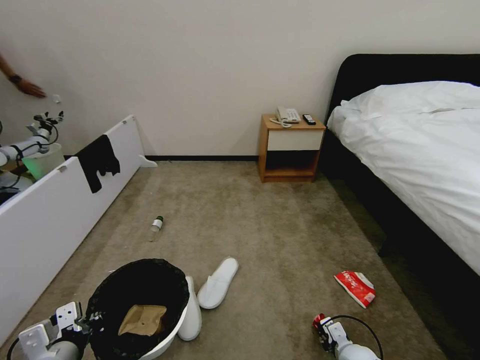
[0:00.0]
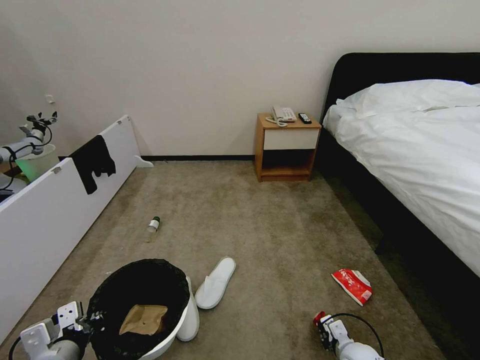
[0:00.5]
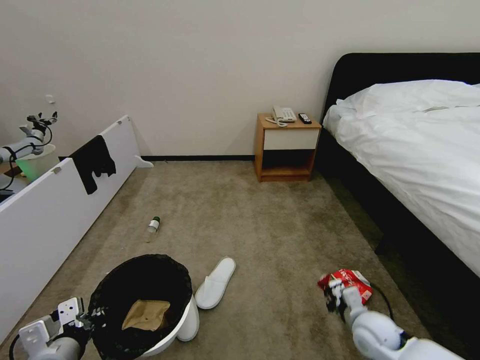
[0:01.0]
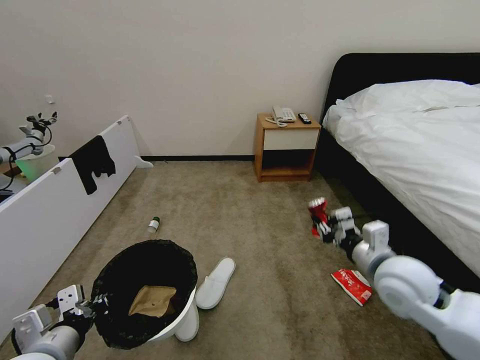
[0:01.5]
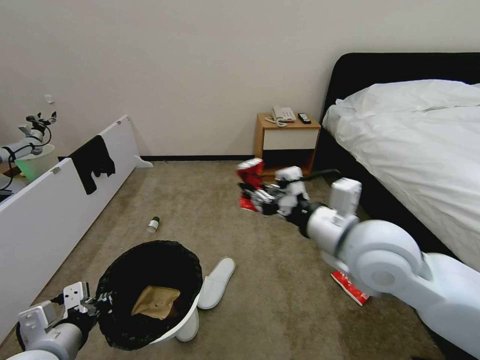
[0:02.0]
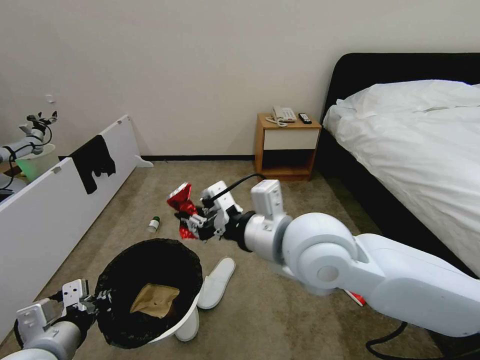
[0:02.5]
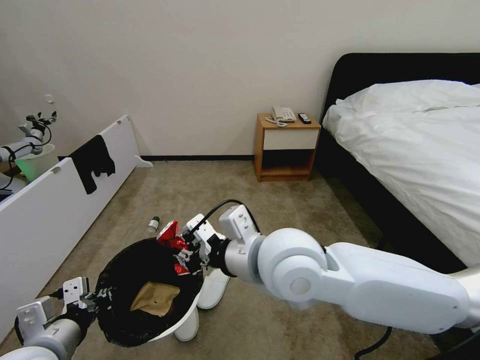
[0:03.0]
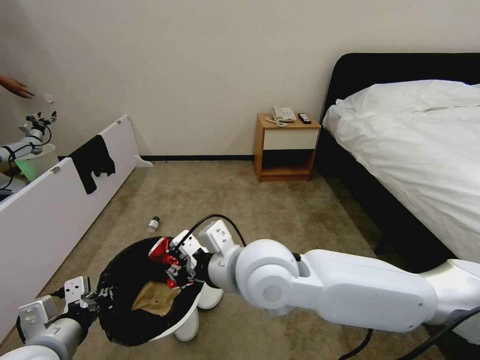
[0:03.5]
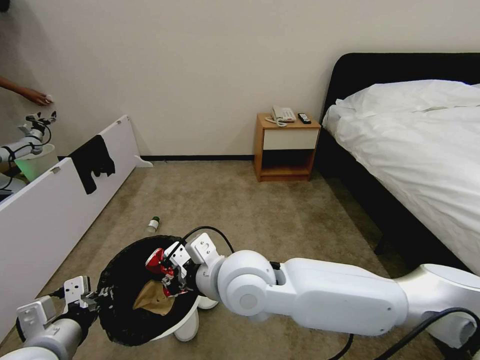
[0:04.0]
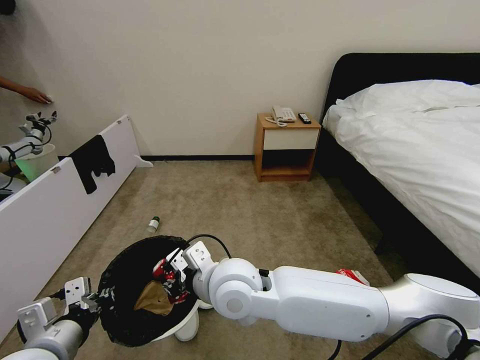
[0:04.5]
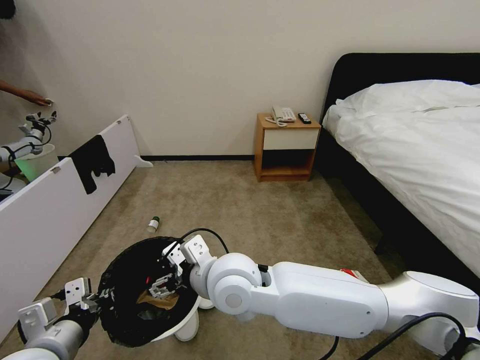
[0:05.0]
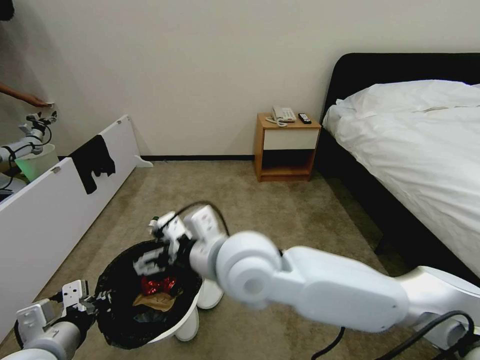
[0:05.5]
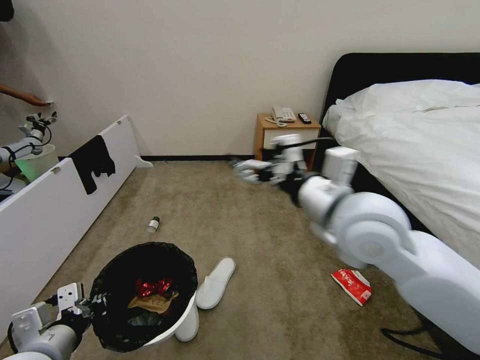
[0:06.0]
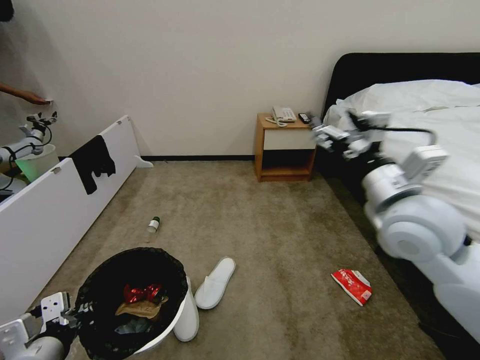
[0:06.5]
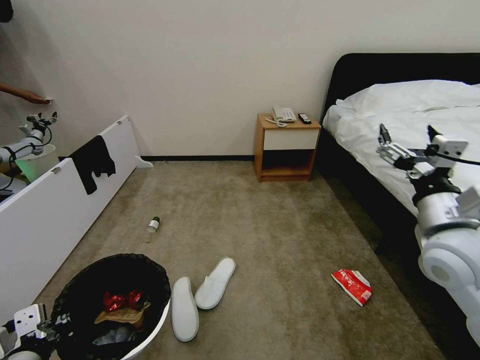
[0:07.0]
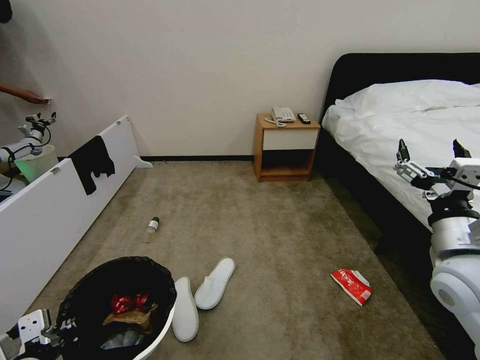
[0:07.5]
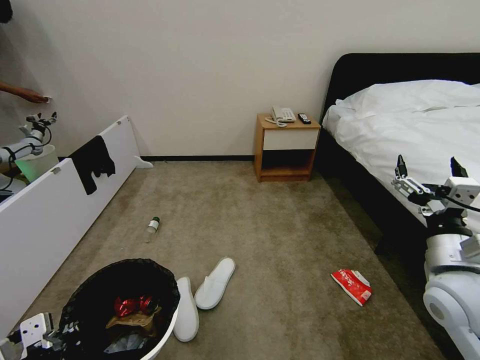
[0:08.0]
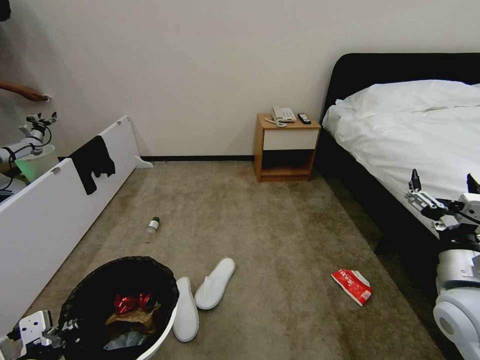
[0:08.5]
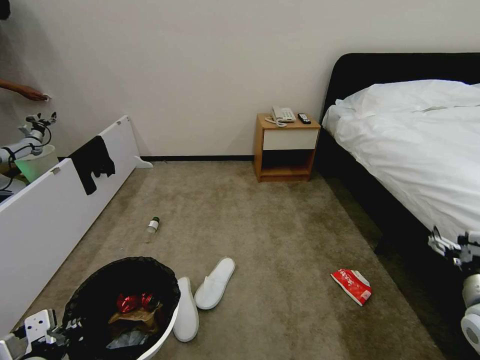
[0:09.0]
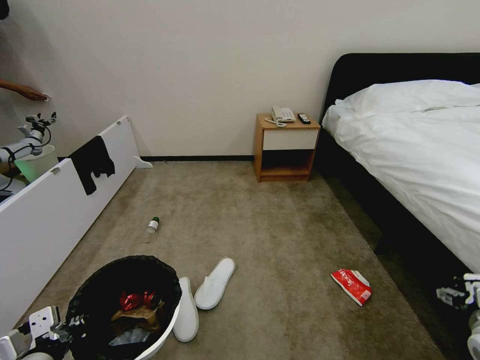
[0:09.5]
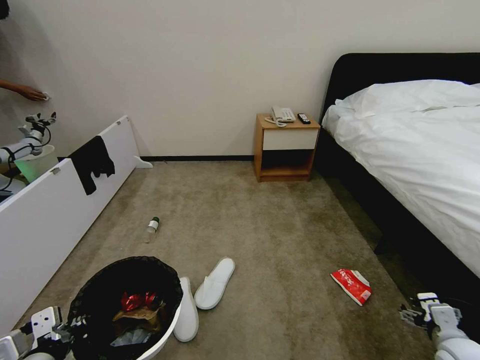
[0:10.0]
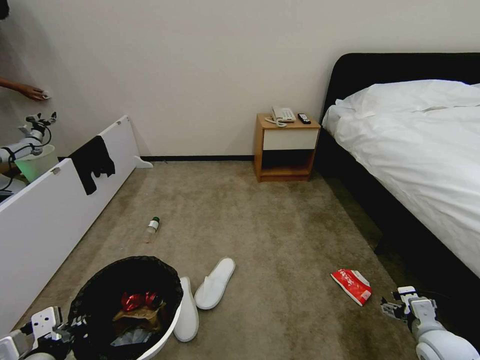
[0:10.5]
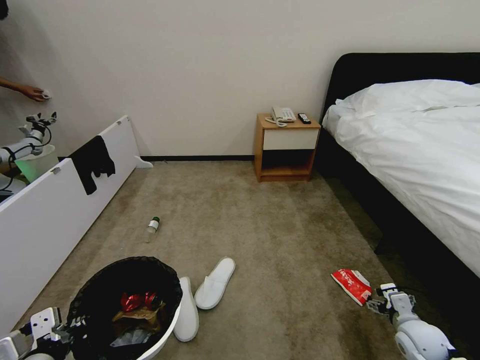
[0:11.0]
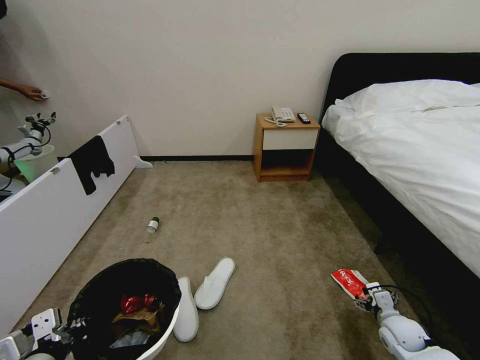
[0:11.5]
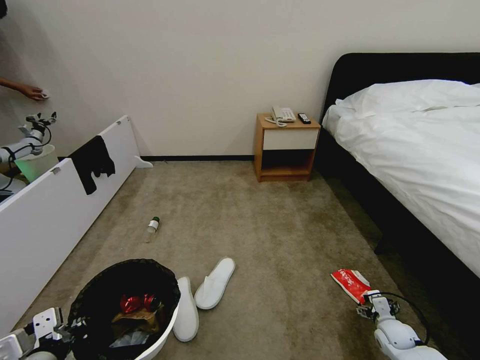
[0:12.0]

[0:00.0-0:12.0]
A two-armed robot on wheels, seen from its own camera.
Task of the whole recording: Pick up the trash bin, then pick up the garbage from the floor and place it into the trash bin.
0:00.0 to 0:02.0: The left gripper moves roughly 5 cm, while the right gripper moves upward, approximately 50 cm.
0:02.0 to 0:04.0: The right gripper heads to the left and downward, covering roughly 20 cm.
0:04.0 to 0:06.0: The right gripper travels to the right and upward by approximately 20 cm, and opens.
0:06.0 to 0:08.0: The left gripper is displaced backward by roughly 5 cm. The right gripper moves to the right and downward, some 20 cm.
0:08.0 to 0:10.0: The right gripper shifts approximately 20 cm downward and to the right.
0:10.0 to 0:12.0: The right gripper heads downward and forward, covering about 15 cm.

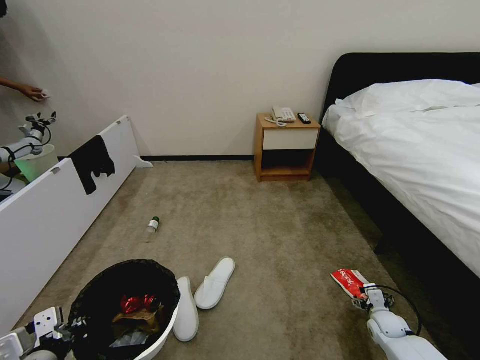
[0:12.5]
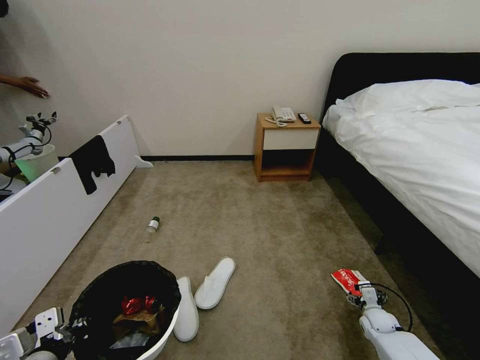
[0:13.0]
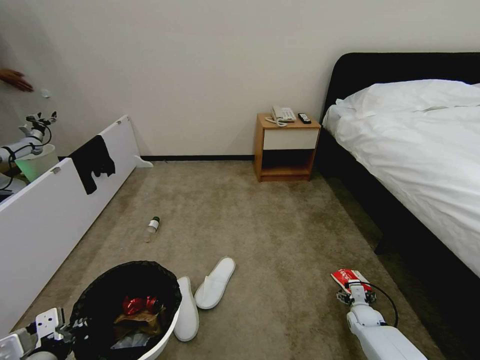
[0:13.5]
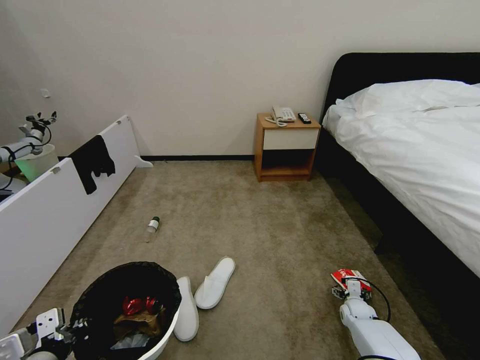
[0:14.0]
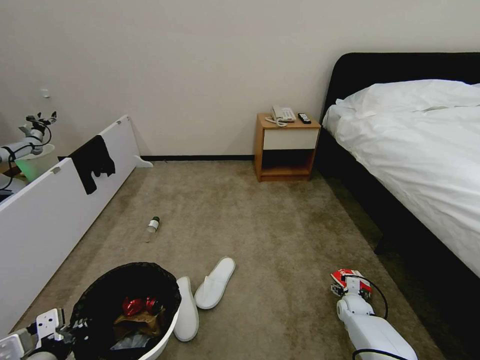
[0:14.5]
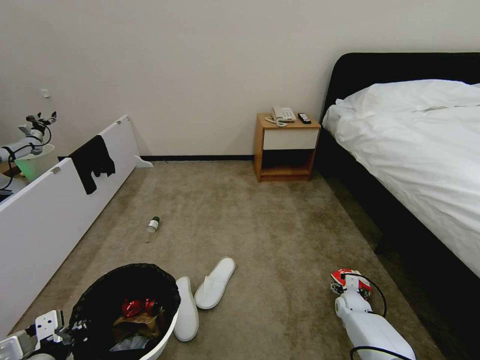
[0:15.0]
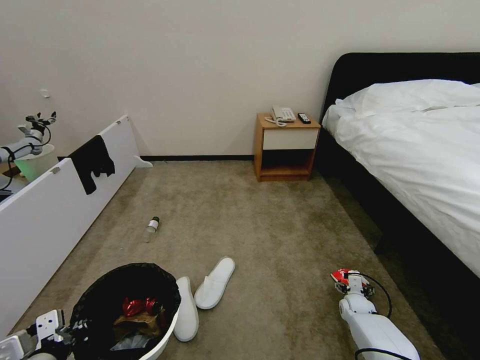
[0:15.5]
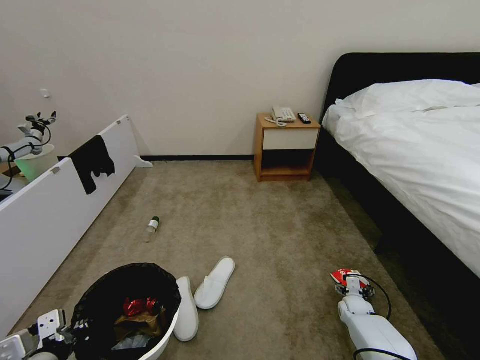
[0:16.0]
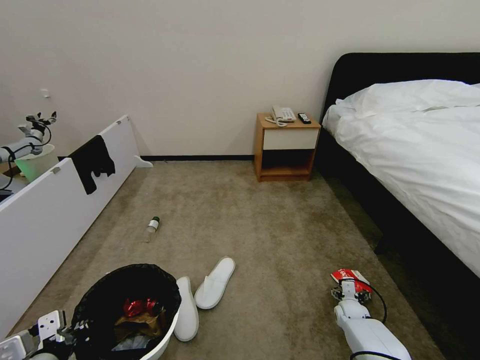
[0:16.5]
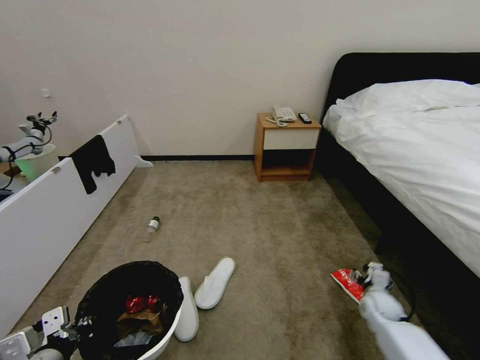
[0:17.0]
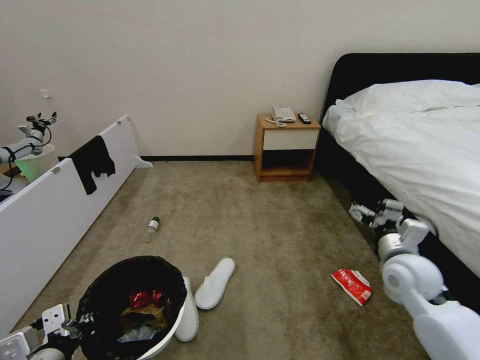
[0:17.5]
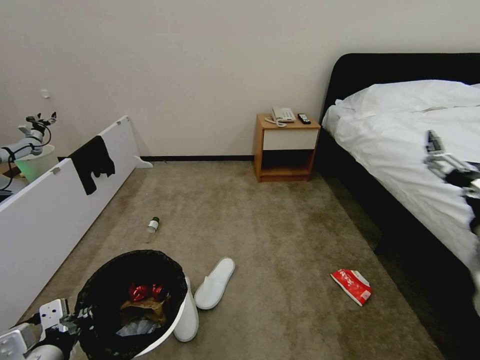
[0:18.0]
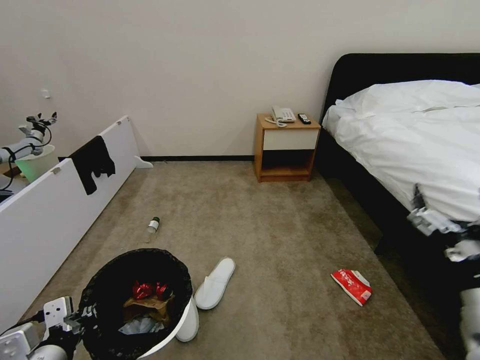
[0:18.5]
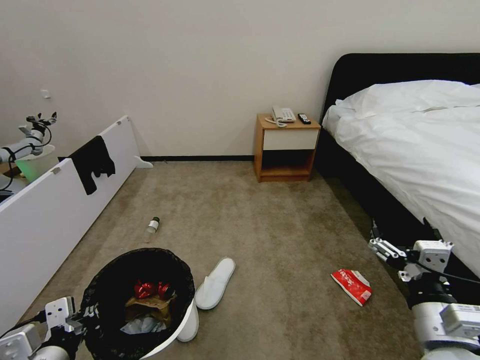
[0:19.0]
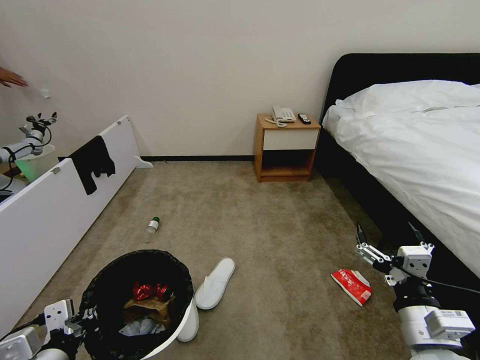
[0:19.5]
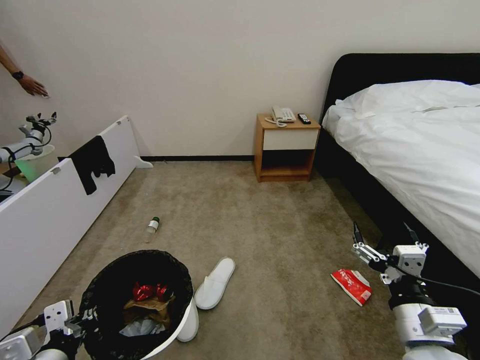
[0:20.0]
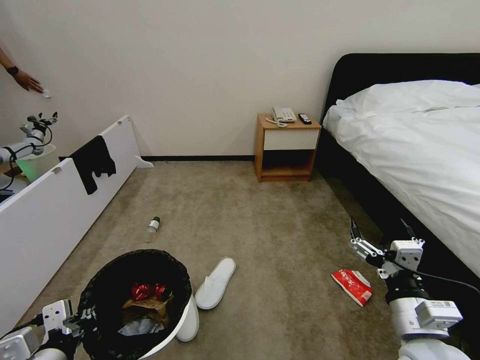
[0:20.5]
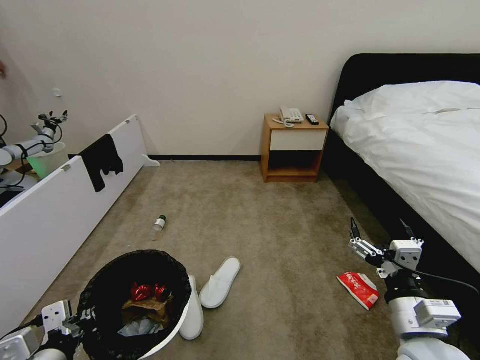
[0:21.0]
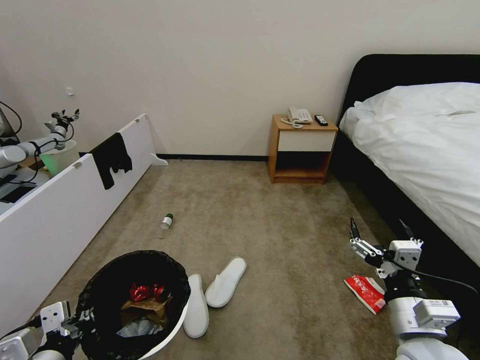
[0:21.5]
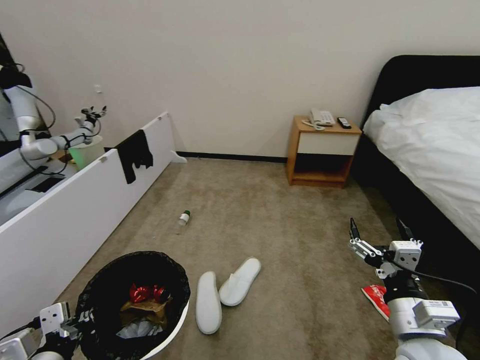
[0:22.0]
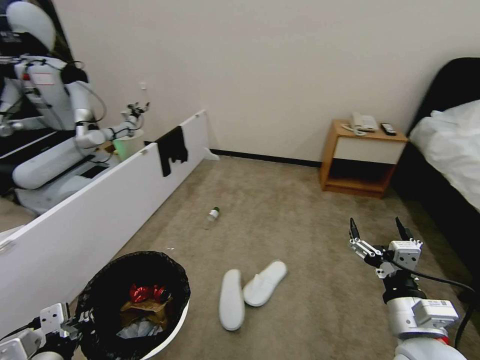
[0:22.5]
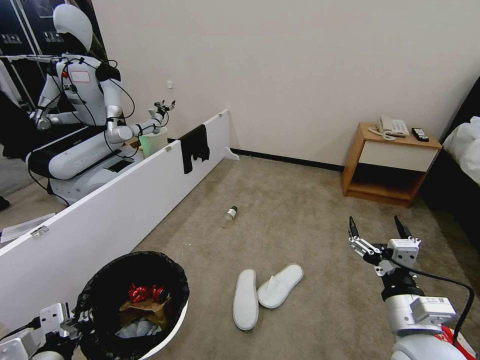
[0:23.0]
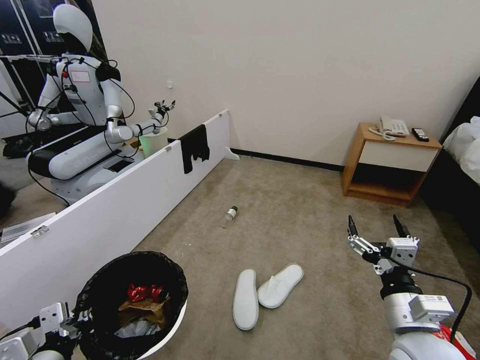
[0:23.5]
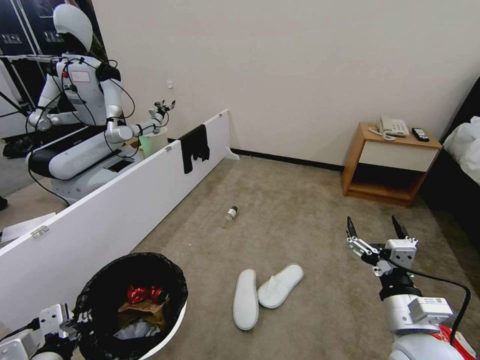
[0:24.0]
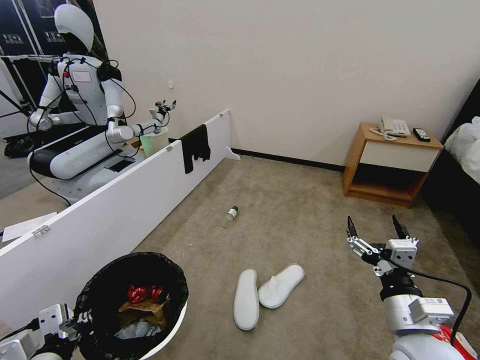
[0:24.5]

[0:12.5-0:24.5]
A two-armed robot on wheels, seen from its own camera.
Task of the whole recording: Pick up the trash bin, then pick up the garbage from the floor and place it into the trash bin.
0:12.5 to 0:14.5: The right gripper goes some 10 cm forward and to the left.
0:14.5 to 0:16.5: The grippers stay close to where they were, moving slightly.
0:16.5 to 0:18.5: The right gripper shifts about 50 cm upward and backward.
0:18.5 to 0:20.5: The right gripper moves downward, roughly 10 cm.

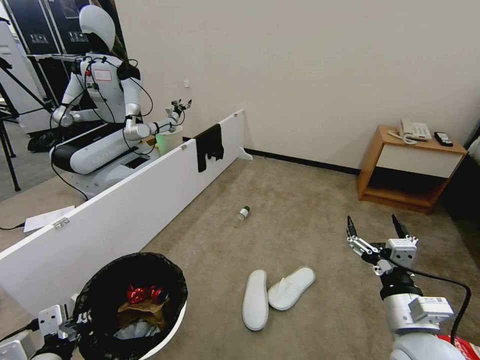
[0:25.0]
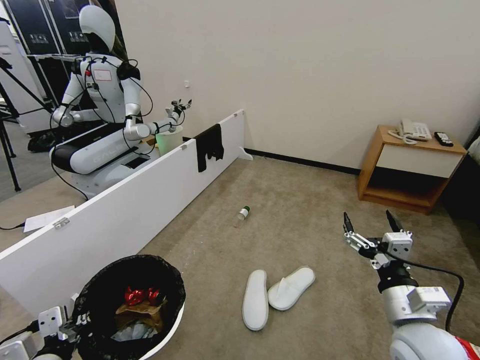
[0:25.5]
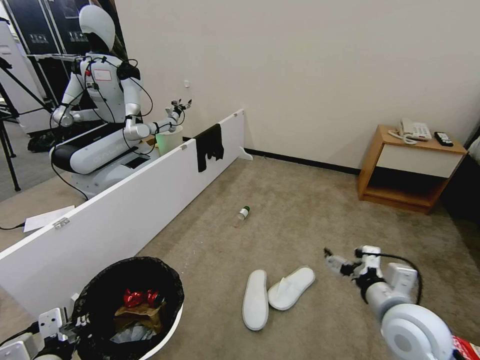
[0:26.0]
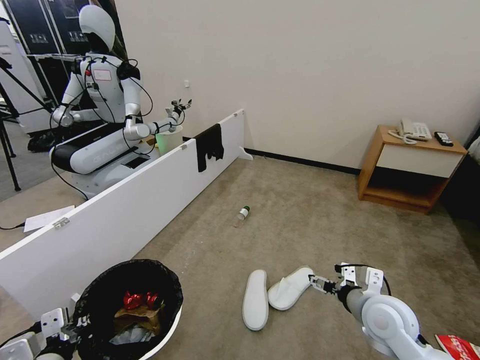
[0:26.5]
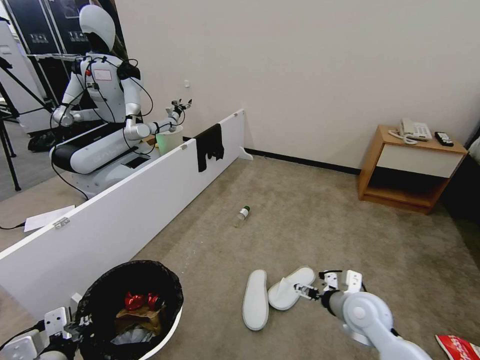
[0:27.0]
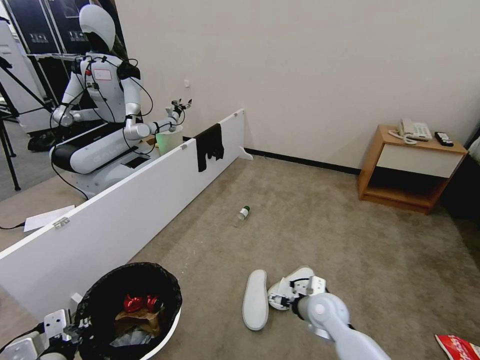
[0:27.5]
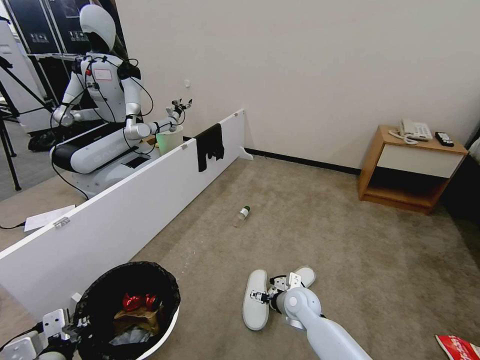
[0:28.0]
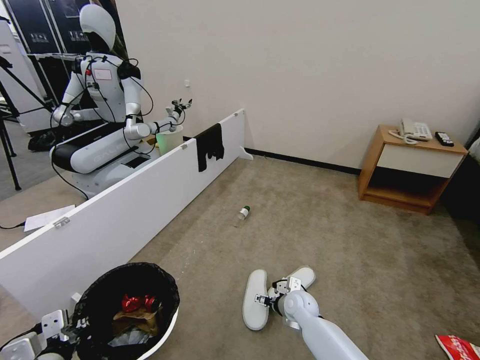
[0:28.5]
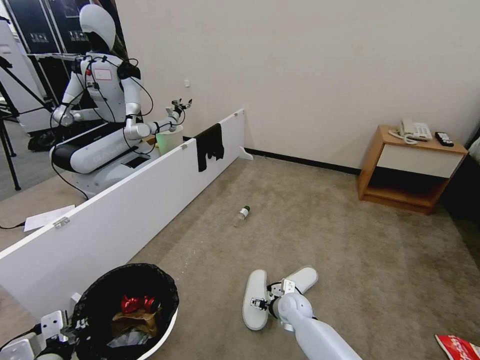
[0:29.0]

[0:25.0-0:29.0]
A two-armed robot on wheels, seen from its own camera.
Task of the whole recording: Pick up the trash bin, then pick up the garbage from the floor and place it into the trash bin.
0:25.0 to 0:27.0: The right gripper shifts about 15 cm forward and downward.
0:27.0 to 0:29.0: The right gripper goes some 20 cm downward, to the left and forward.
